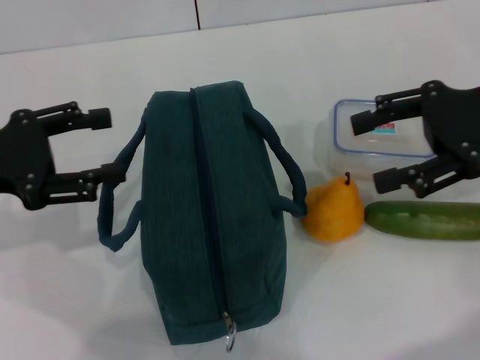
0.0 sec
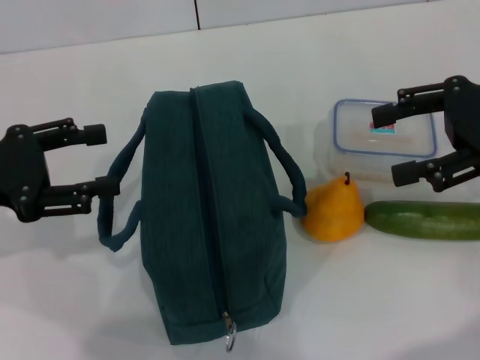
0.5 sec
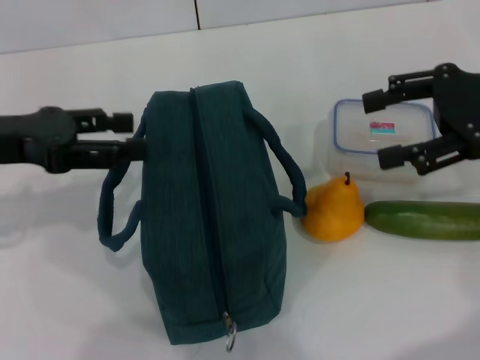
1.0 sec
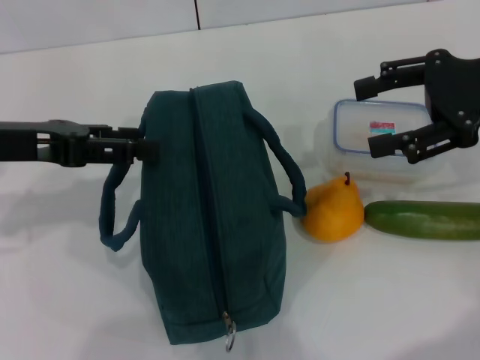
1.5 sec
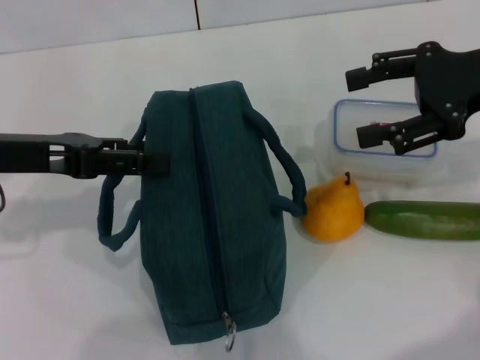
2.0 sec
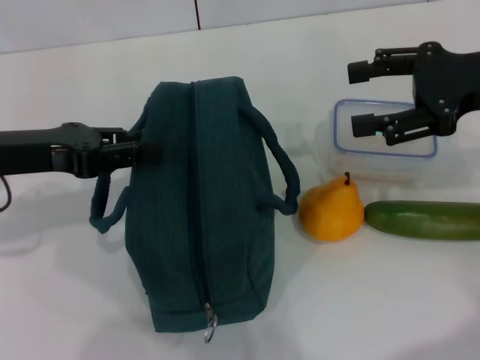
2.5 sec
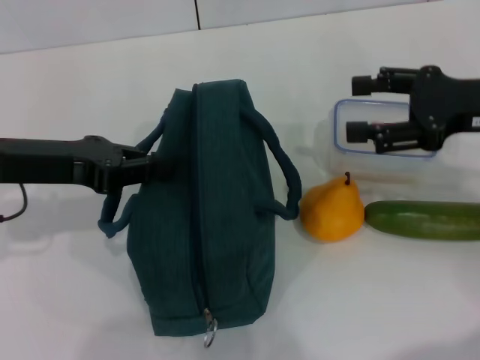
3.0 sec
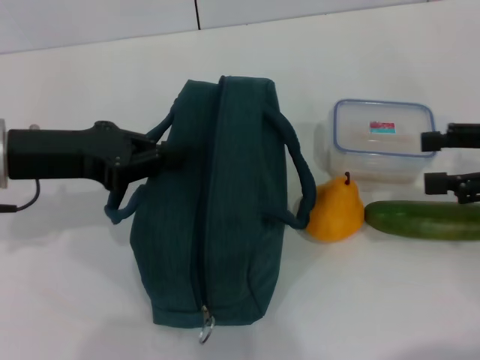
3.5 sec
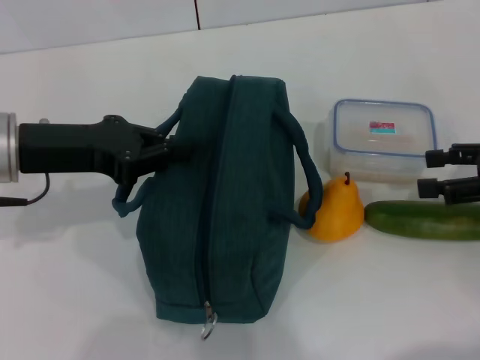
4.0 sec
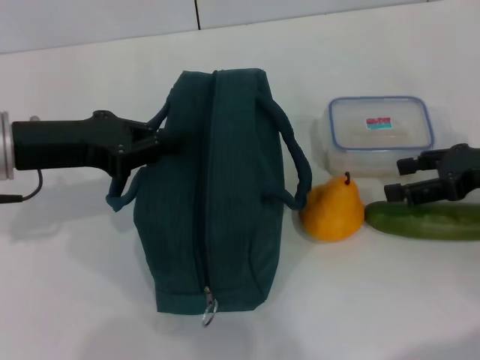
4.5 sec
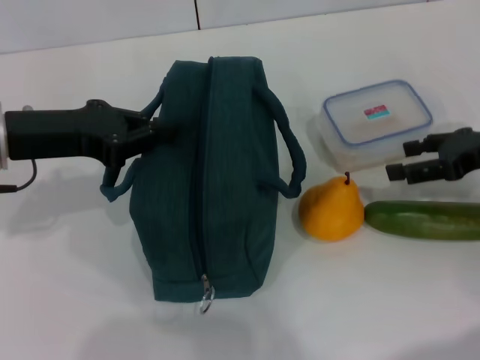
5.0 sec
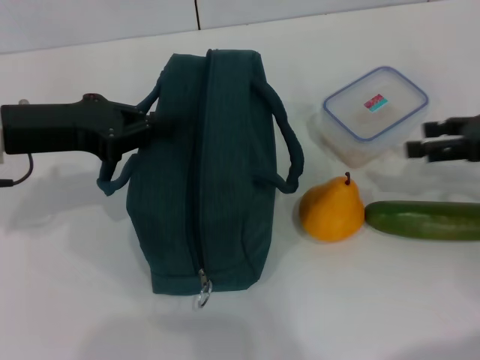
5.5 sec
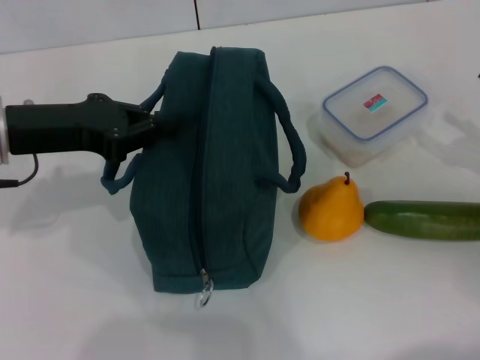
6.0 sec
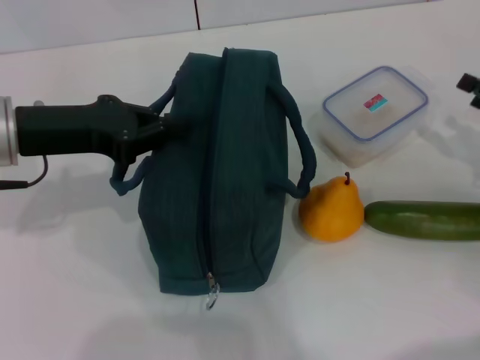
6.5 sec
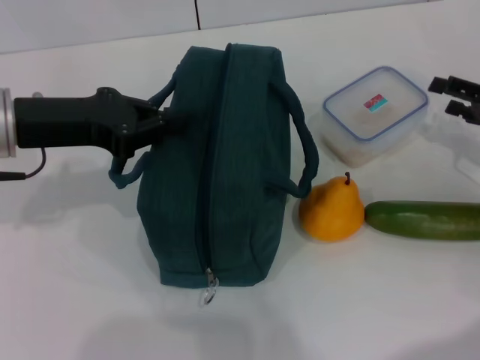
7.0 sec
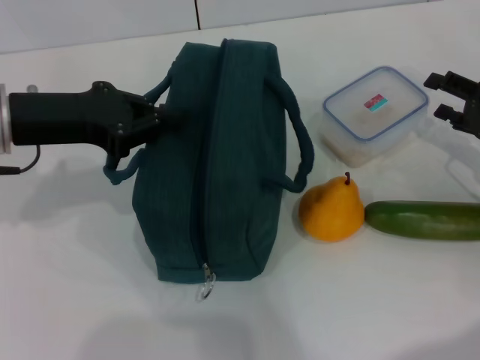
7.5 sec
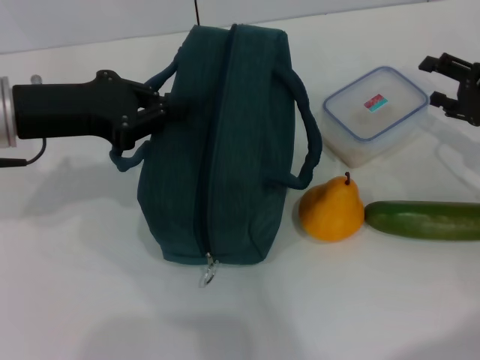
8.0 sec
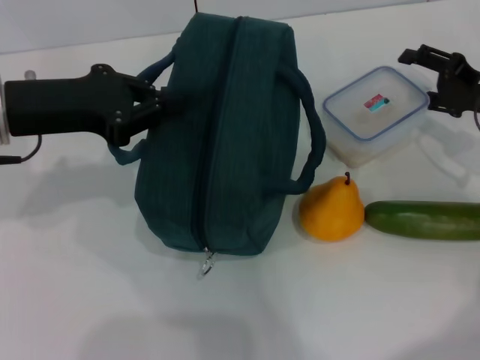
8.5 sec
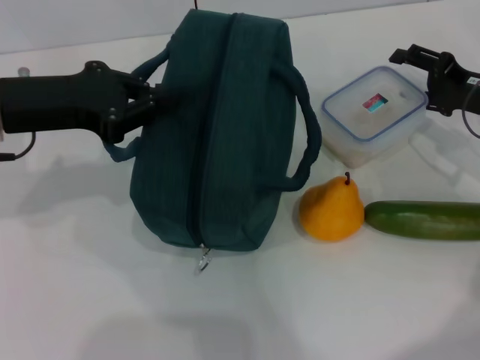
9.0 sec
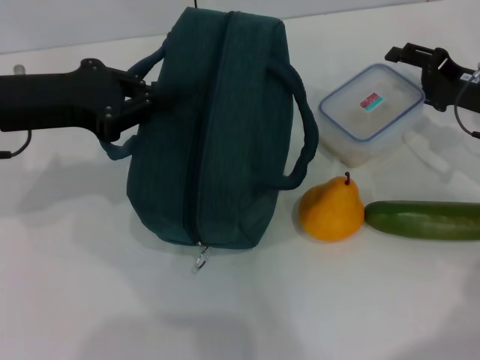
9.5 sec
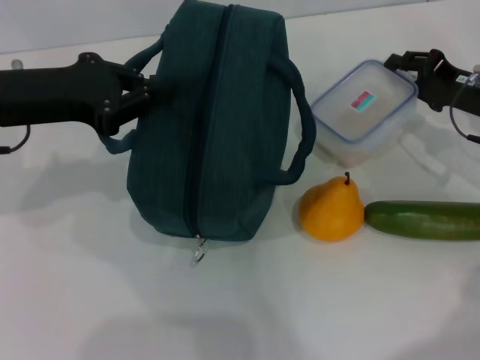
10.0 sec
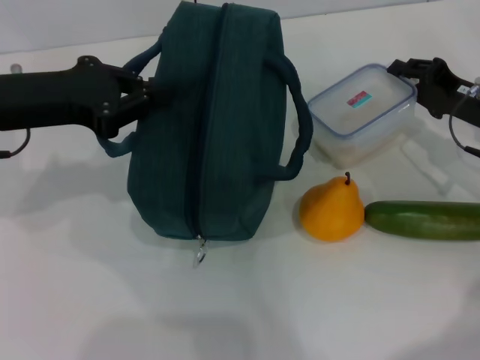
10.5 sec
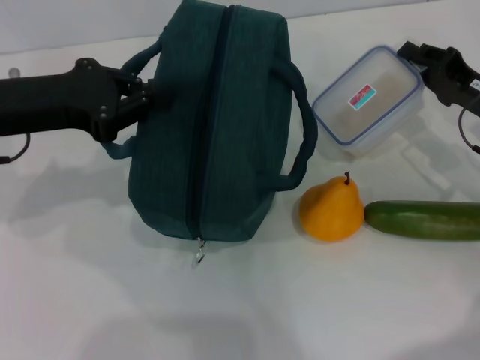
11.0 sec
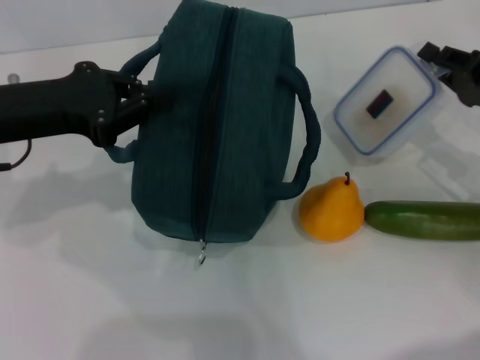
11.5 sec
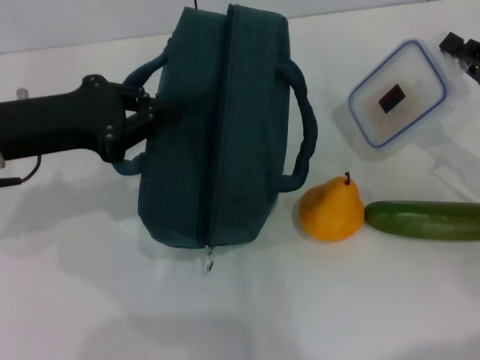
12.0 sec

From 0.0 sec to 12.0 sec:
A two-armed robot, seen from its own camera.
Step, from 0.0 sec to 4.5 sec: Hold the lunch bag with your left hand.
From 0.0 sec to 2.0 sec: The left gripper moves roughly 5 cm.
From 2.0 sec to 4.0 sec: The right gripper travels downward, to the right and backward by about 10 cm. The left gripper closes its fingers.
From 4.0 sec to 6.0 sec: The right gripper shifts by roughly 5 cm.
From 6.0 sec to 8.0 sec: The right gripper shifts some 5 cm forward.
From 8.0 sec to 10.0 sec: The right gripper closes its fingers.
From 10.0 sec to 12.0 sec: The right gripper shifts roughly 5 cm backward, and closes.

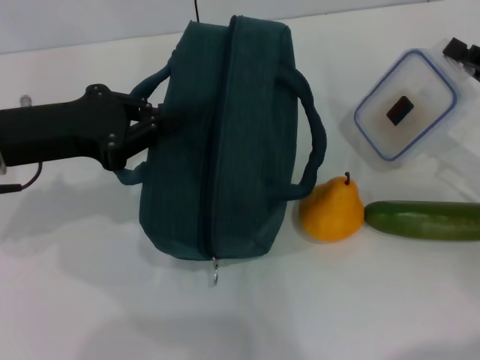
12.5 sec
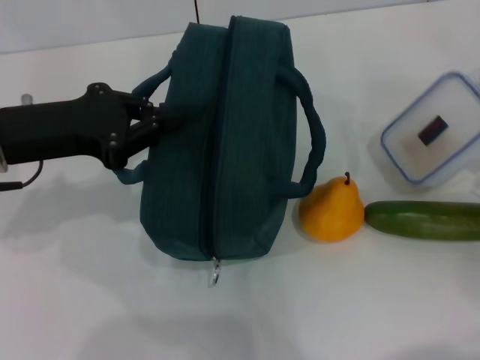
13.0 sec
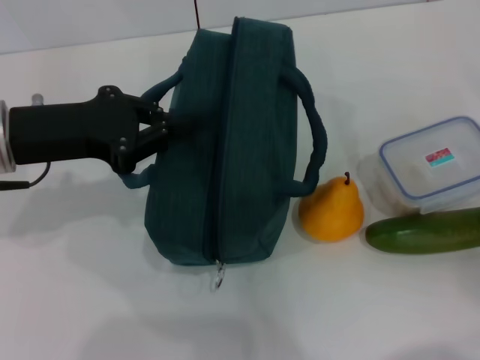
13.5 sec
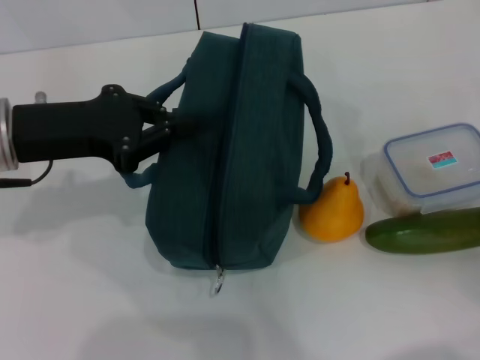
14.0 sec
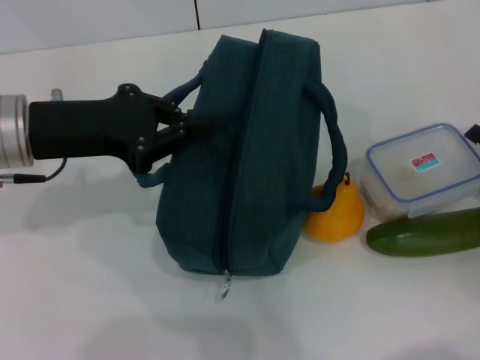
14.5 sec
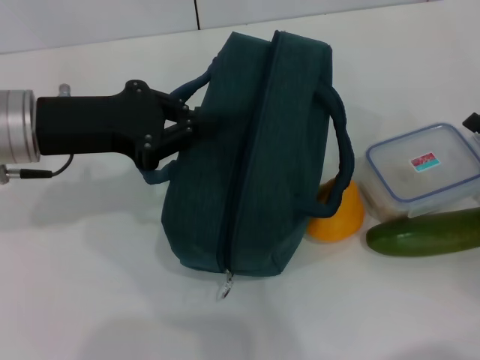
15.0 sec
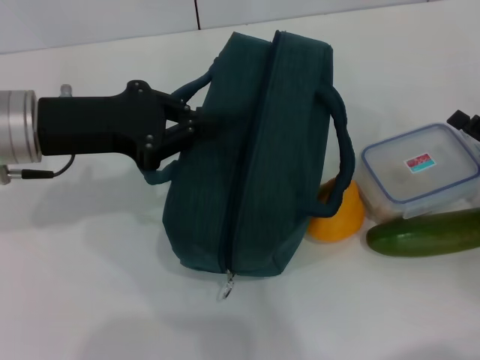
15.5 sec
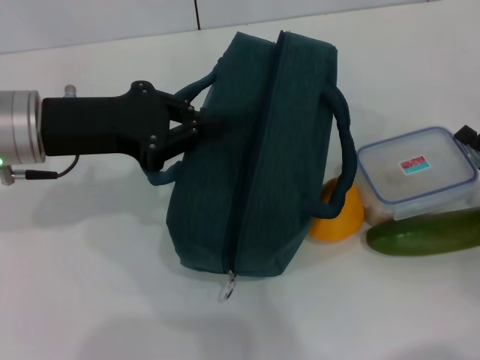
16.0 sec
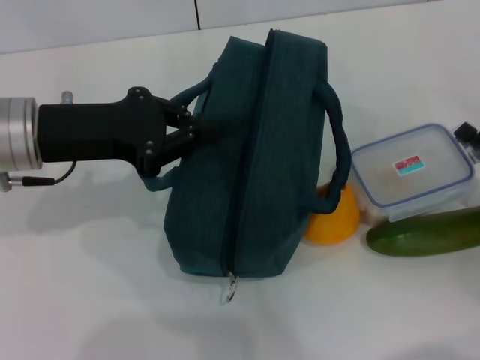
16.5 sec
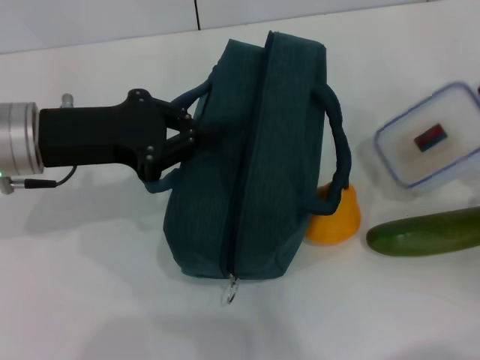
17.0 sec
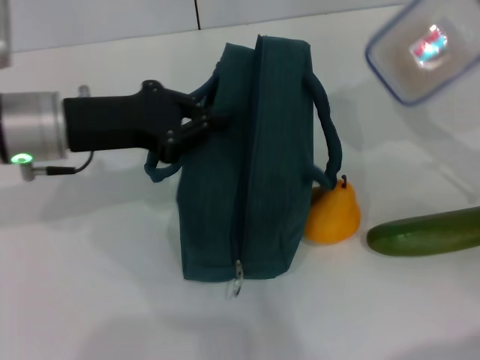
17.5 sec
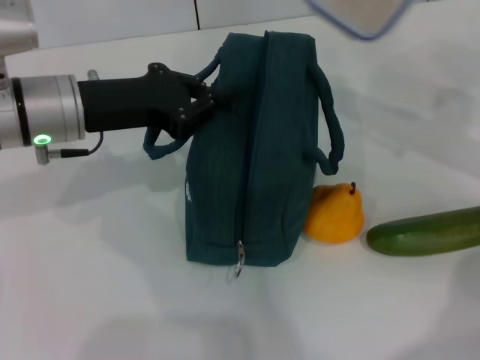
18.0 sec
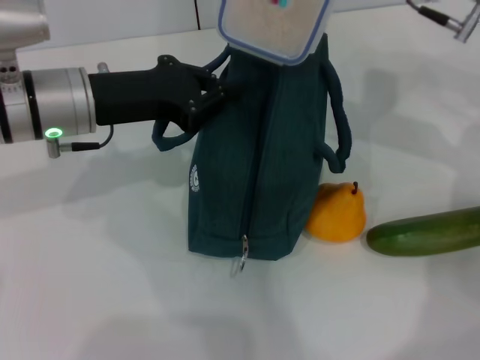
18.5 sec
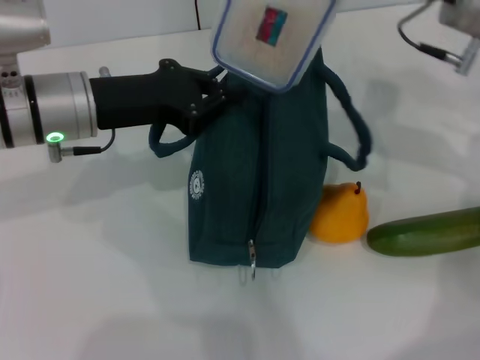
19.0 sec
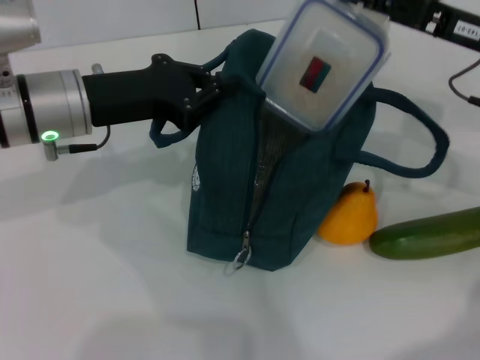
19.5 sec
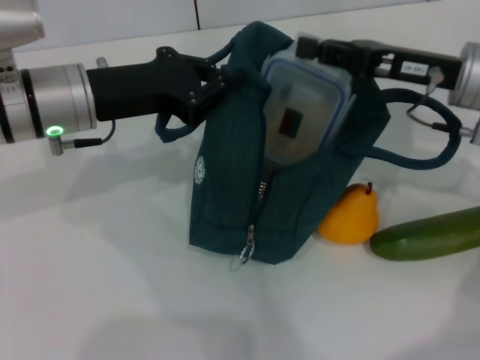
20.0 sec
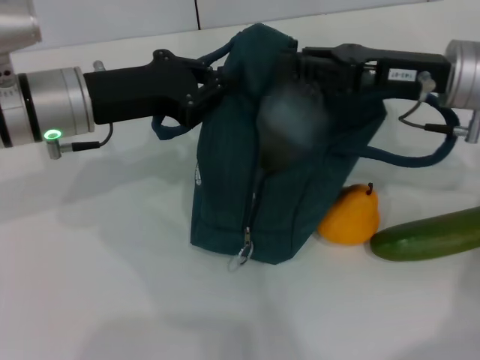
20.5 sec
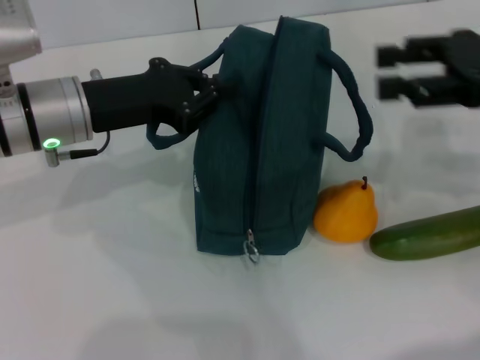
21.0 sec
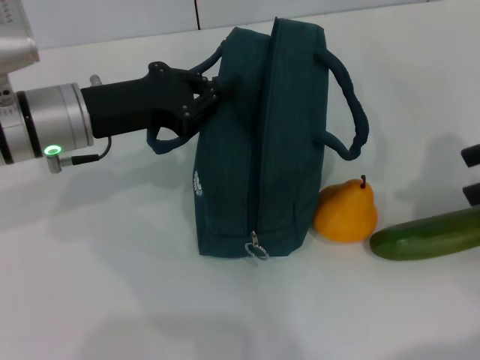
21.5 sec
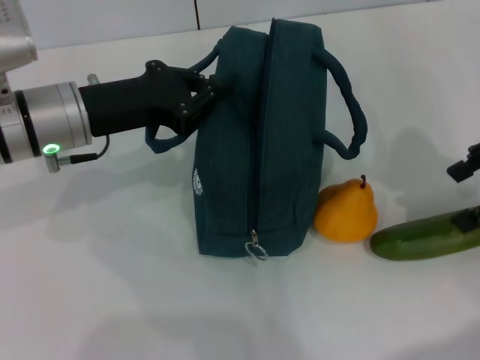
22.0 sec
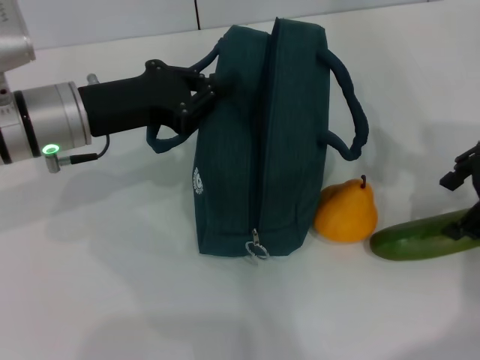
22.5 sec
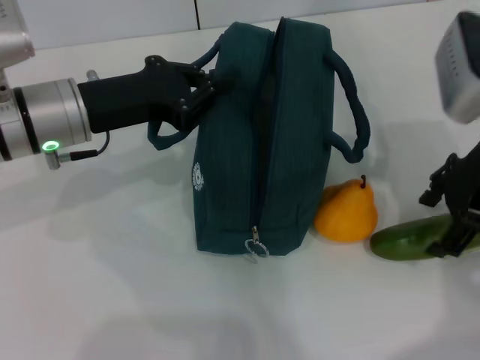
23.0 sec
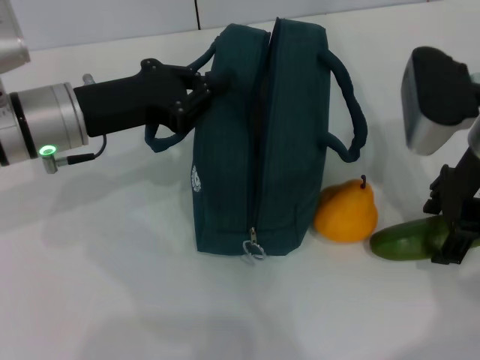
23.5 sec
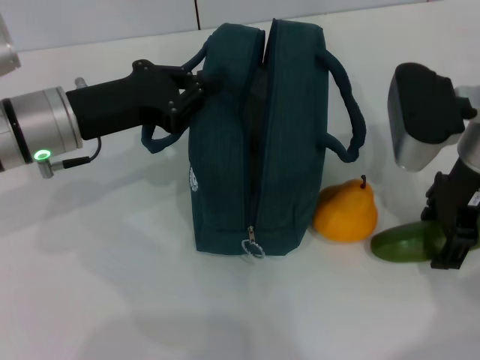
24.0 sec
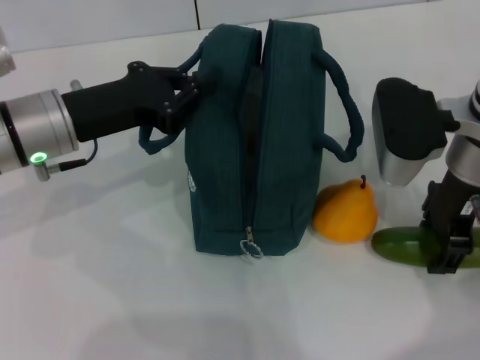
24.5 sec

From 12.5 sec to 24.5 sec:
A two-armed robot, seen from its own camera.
Step, from 12.5 sec to 16.0 sec: Pick up the lunch box with your right hand.
Step, from 16.5 sec to 20.5 sec: Place the lunch box into the lunch bag with your right hand.
Step, from 21.0 sec to 24.0 sec: Pick up the cucumber with your right hand.
From 12.5 sec to 14.5 sec: The right gripper goes about 10 cm backward and downward, and opens up.
From 14.5 sec to 16.5 sec: The right gripper closes.
From 16.5 sec to 18.5 sec: The left gripper moves some 5 cm. The right gripper shifts roughly 25 cm upward, forward and to the left.
From 18.5 sec to 20.5 sec: The right gripper moves downward, about 5 cm.
From 20.5 sec to 22.5 sec: The right gripper opens up.
From 22.5 sec to 24.5 sec: The right gripper travels to the left by some 10 cm.

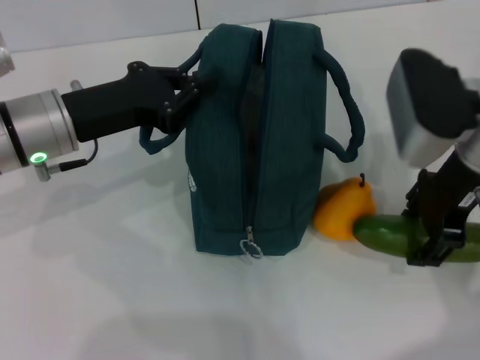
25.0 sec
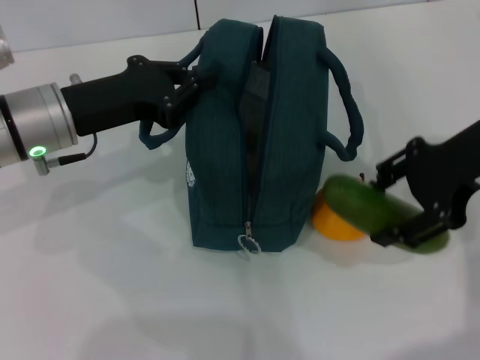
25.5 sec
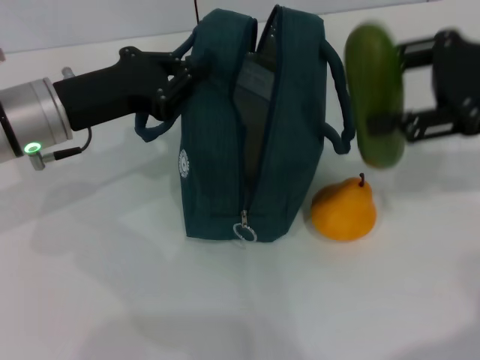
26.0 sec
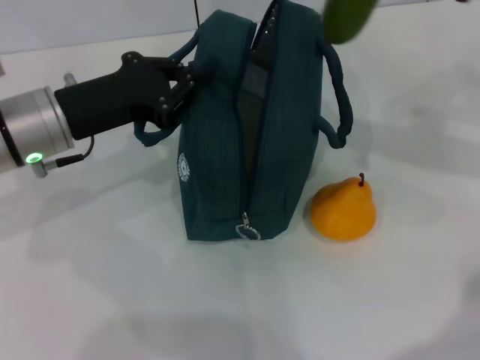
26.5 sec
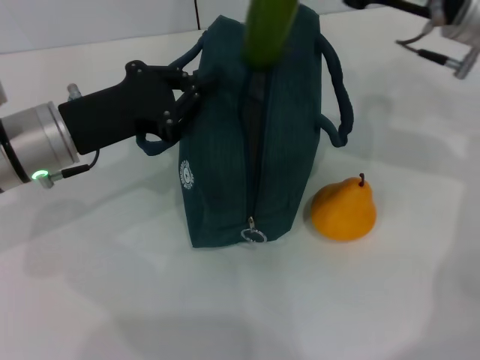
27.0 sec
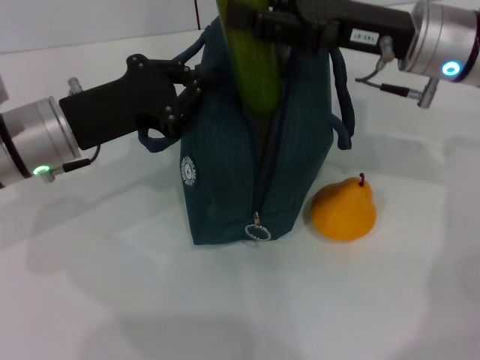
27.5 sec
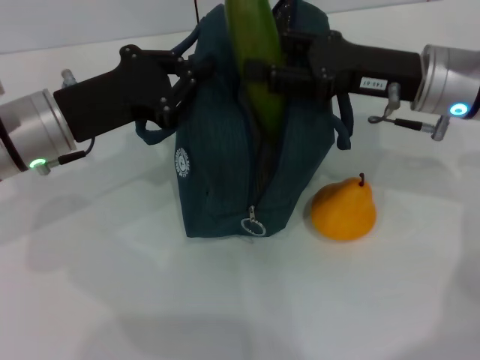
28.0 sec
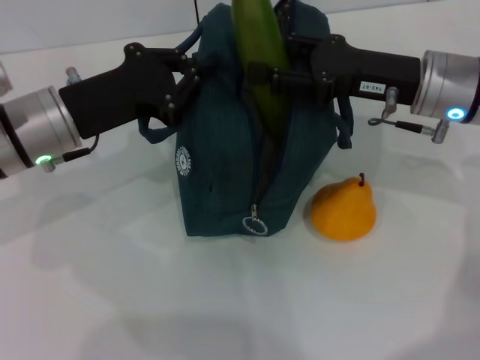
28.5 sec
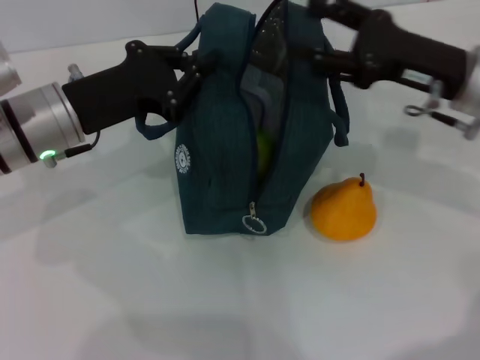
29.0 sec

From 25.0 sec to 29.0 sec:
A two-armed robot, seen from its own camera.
Step, from 25.0 sec to 29.0 sec: Put the cucumber into the lunch bag with your right hand.
From 25.0 sec to 27.0 sec: The right gripper travels forward by some 5 cm, and reaches about 10 cm to the right, then returns.
From 27.0 sec to 29.0 sec: The right gripper shifts about 5 cm downward.
